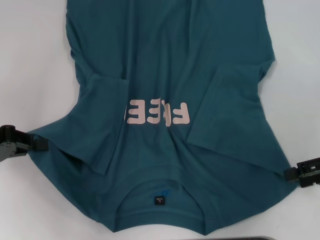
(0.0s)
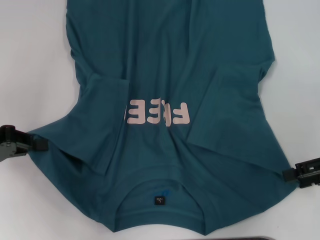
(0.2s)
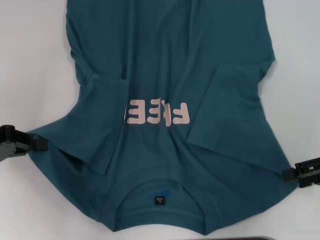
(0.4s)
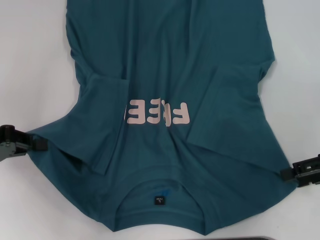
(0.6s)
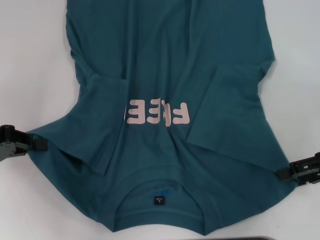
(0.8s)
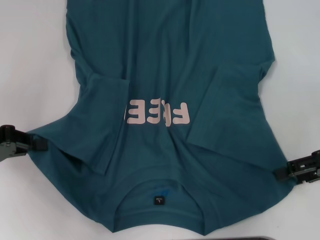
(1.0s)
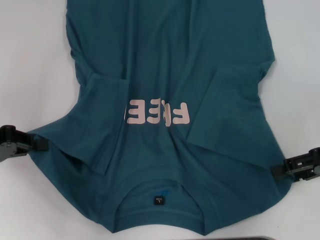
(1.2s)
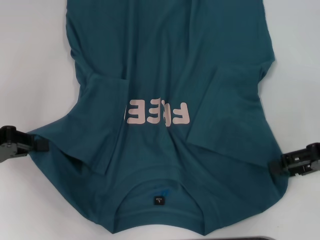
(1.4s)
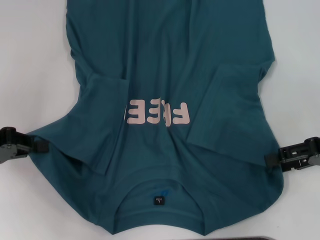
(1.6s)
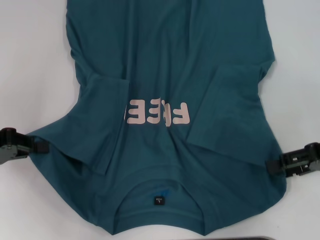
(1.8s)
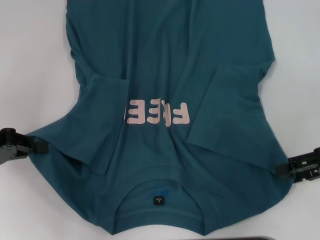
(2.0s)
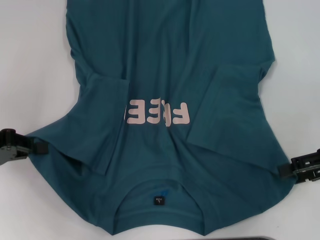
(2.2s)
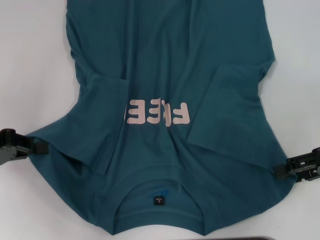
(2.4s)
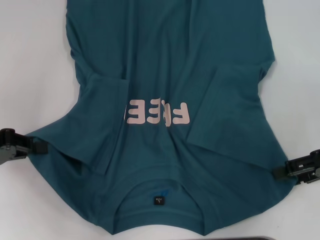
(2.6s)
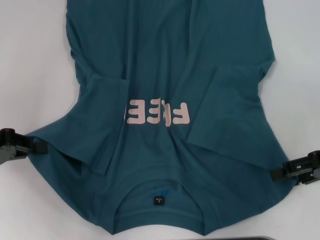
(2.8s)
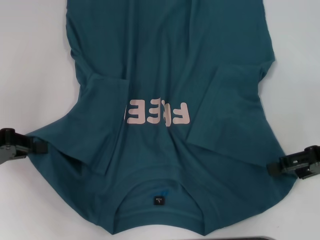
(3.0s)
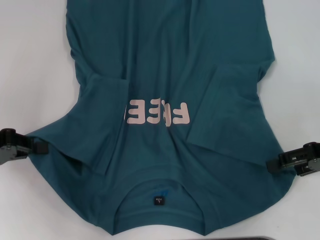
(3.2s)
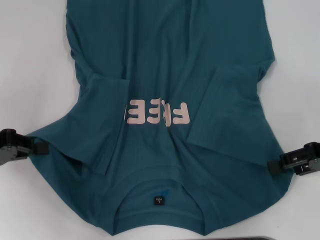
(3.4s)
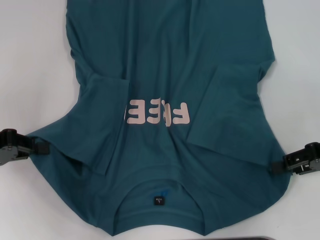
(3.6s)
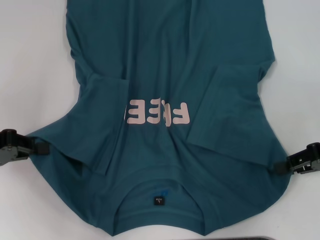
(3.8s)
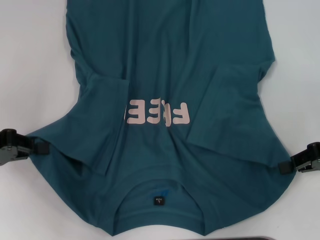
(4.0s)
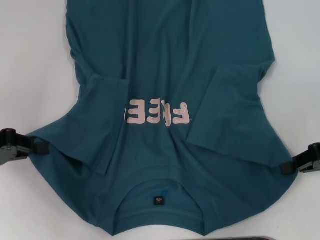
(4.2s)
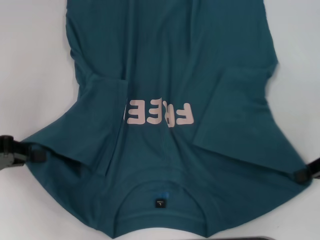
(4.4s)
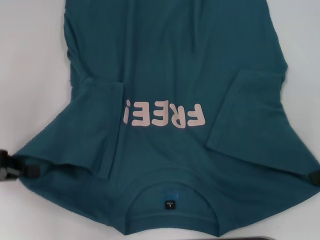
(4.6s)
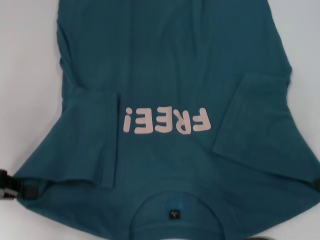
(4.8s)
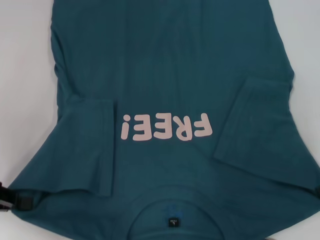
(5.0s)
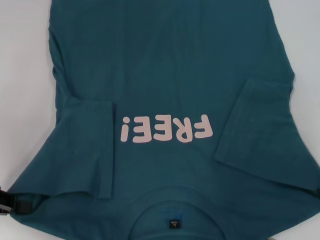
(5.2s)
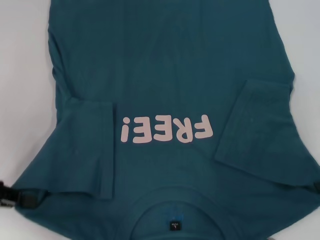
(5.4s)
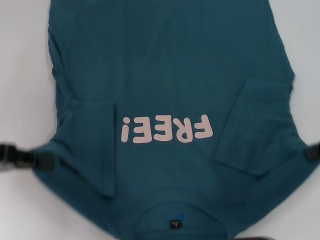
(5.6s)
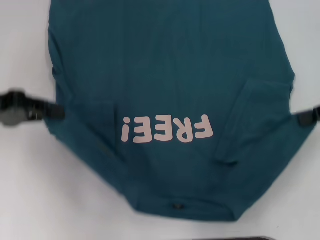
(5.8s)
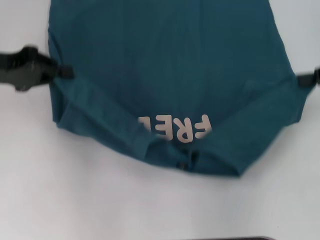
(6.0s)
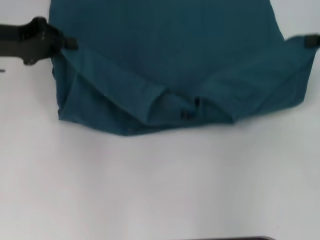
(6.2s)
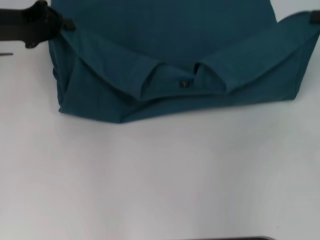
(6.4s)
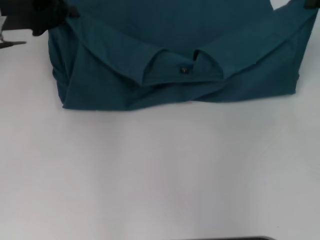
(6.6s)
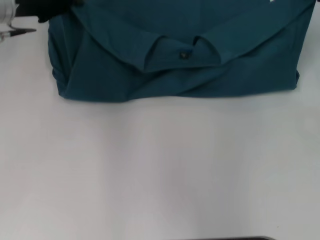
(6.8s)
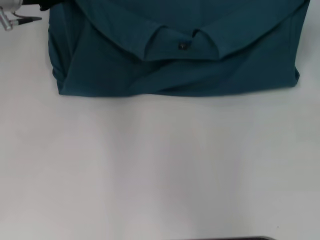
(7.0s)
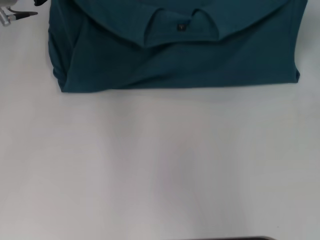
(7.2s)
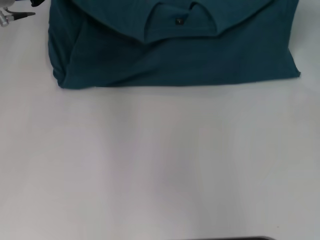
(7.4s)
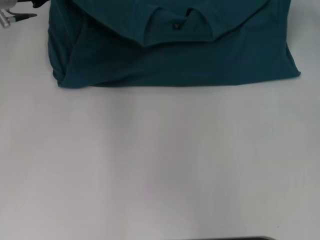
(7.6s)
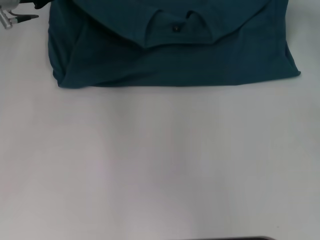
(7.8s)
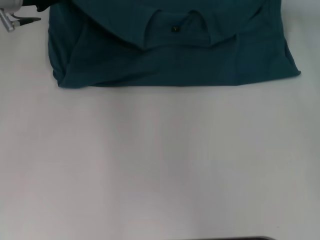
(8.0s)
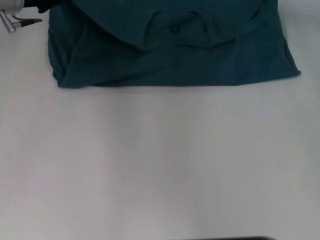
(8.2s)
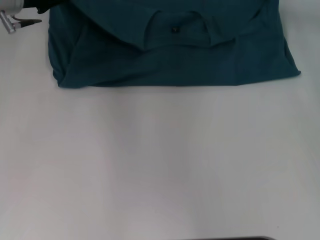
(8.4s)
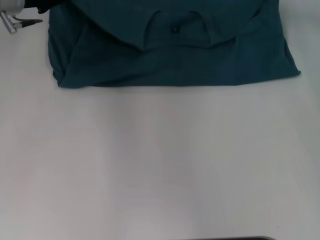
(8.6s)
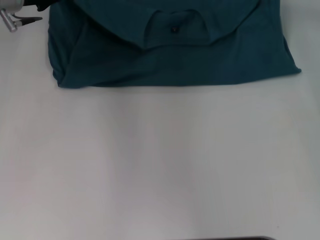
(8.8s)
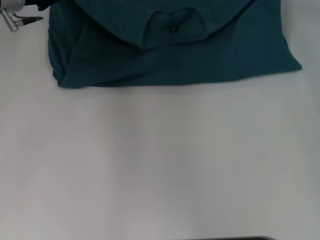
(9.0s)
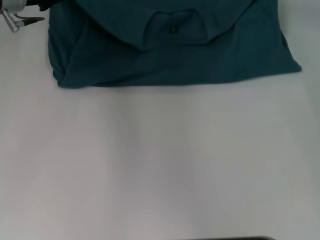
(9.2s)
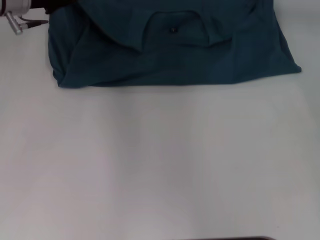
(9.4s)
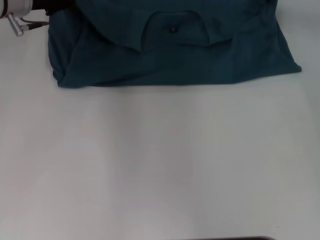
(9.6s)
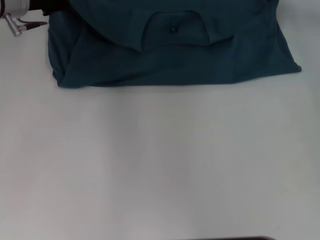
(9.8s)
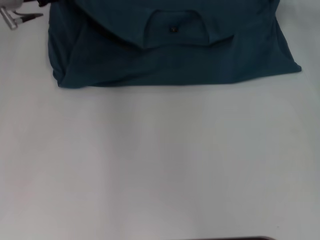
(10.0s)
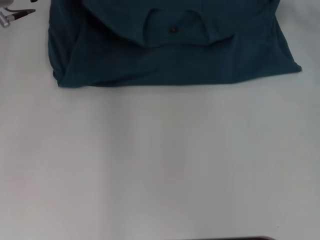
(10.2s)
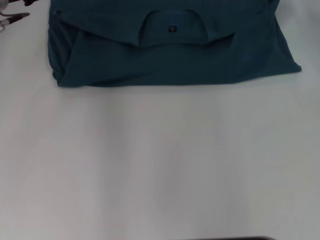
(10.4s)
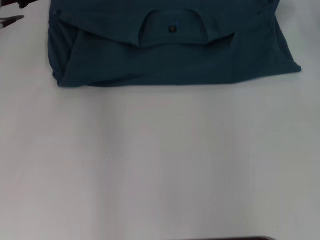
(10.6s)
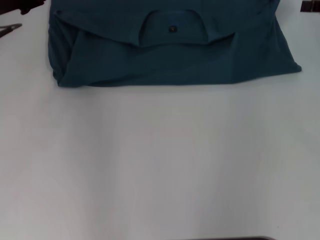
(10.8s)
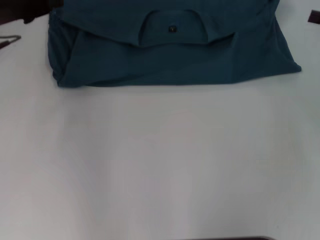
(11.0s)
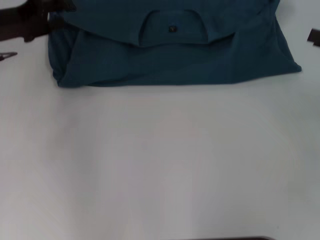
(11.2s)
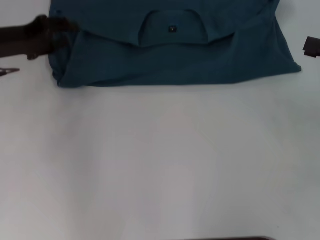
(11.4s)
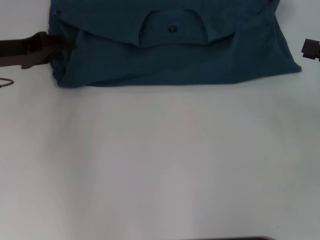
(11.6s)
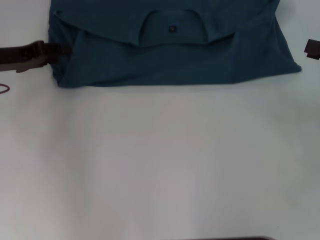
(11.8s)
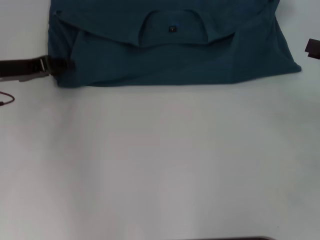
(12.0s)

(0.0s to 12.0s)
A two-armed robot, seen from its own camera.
Step, 0.0s - 4.2s: Grab the bottom right corner with your right hand.
Step, 4.4s - 10.6s: Fold the clothes to the left.
Step, 4.4s - 10.6s: Fold the clothes to the right.
0.0s - 3.0s: The grippers make only small movements.
3.0s - 4.4s: The right gripper closes up.
4.4s - 6.0s: The left gripper travels forward and upward by approximately 10 cm. The right gripper moves upward and forward, roughly 10 cm.
6.0s - 7.6s: The left gripper heads forward and to the right, covering roughly 10 cm. The right gripper is displaced forward by roughly 15 cm.
7.6s - 9.0s: The grippers make only small movements.
9.0s - 10.4s: The right gripper travels to the right by about 5 cm, and opens, while the left gripper opens up.
10.4s - 12.0s: The left gripper shifts roughly 10 cm downward and backward.

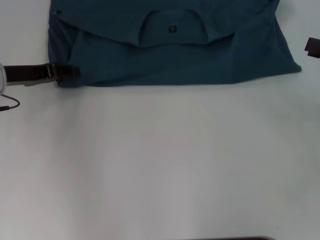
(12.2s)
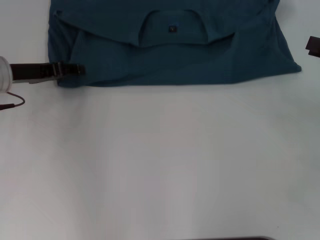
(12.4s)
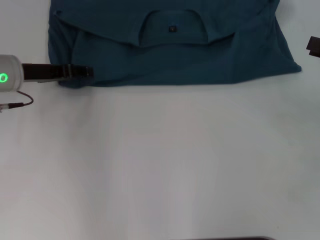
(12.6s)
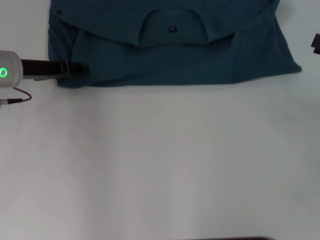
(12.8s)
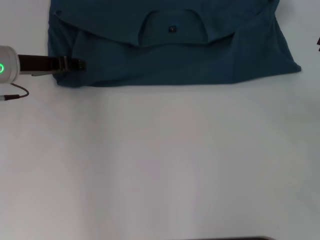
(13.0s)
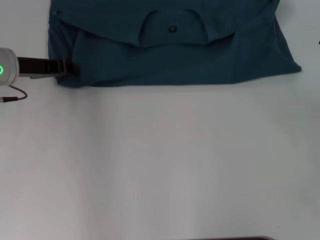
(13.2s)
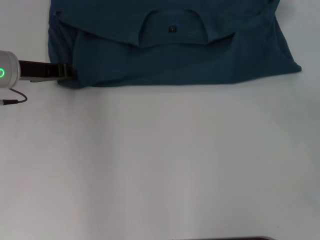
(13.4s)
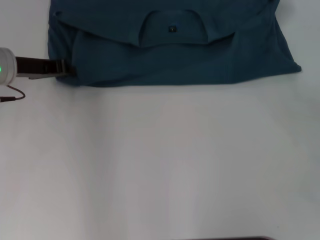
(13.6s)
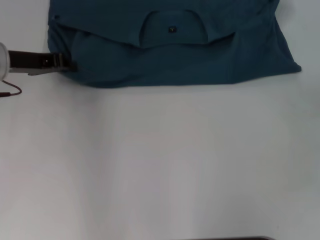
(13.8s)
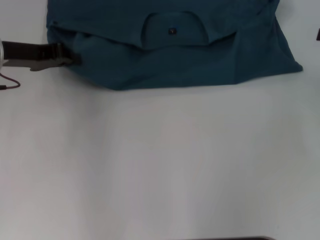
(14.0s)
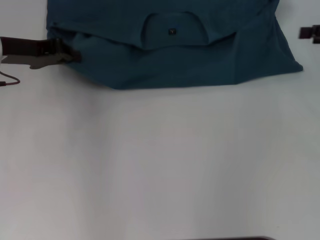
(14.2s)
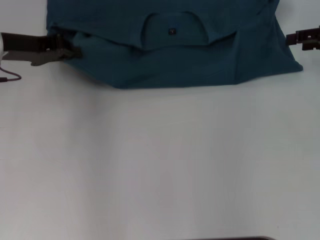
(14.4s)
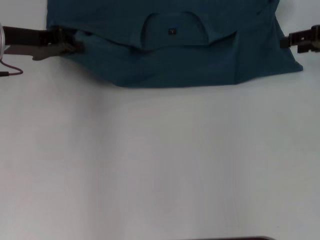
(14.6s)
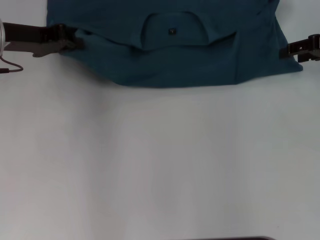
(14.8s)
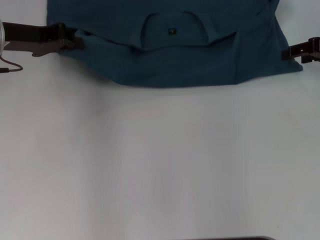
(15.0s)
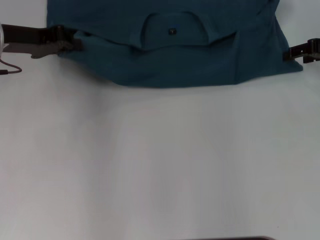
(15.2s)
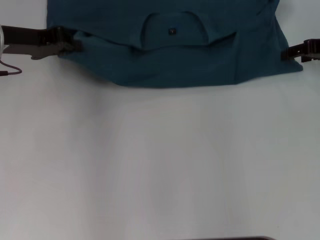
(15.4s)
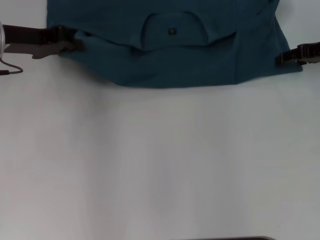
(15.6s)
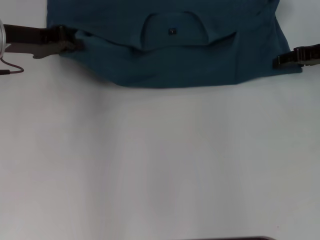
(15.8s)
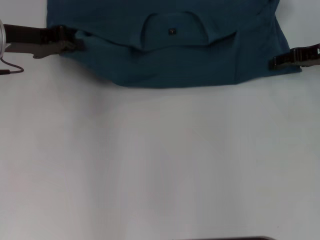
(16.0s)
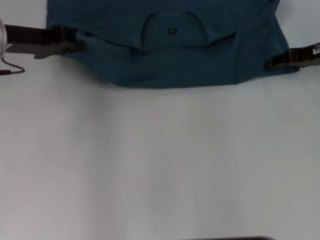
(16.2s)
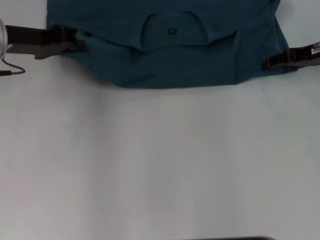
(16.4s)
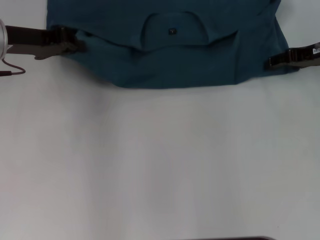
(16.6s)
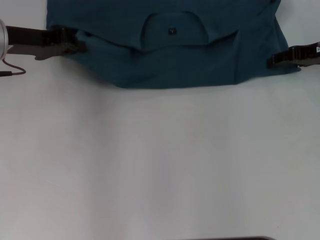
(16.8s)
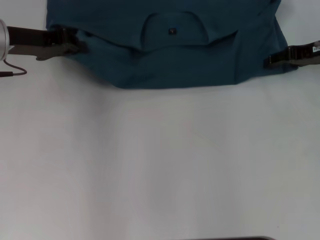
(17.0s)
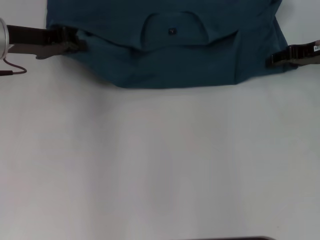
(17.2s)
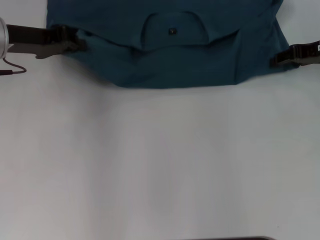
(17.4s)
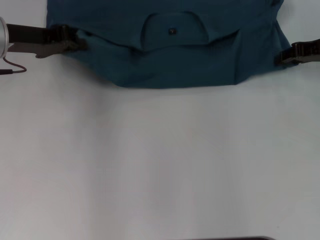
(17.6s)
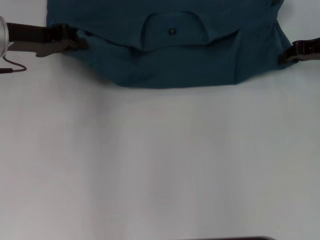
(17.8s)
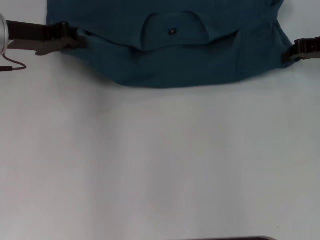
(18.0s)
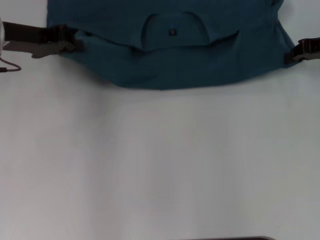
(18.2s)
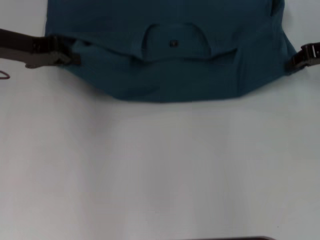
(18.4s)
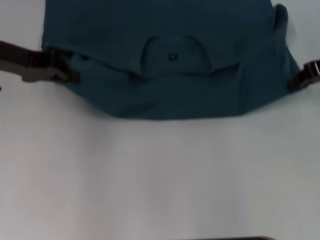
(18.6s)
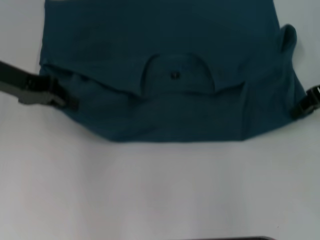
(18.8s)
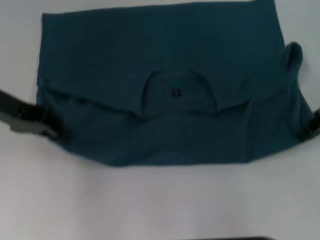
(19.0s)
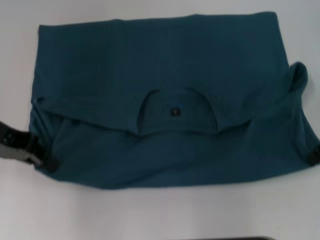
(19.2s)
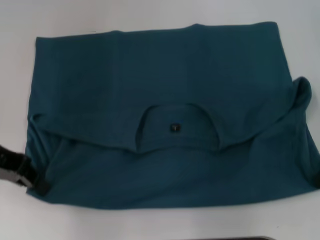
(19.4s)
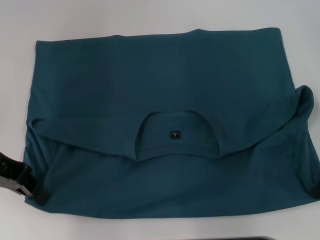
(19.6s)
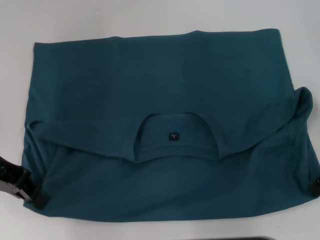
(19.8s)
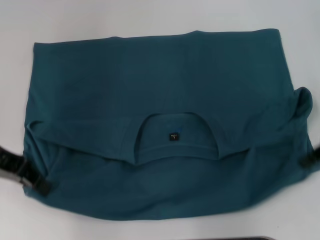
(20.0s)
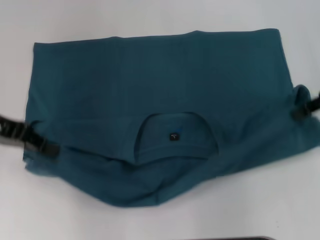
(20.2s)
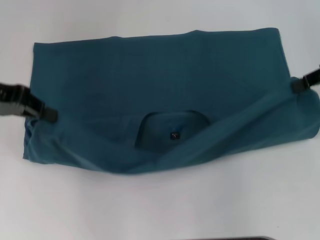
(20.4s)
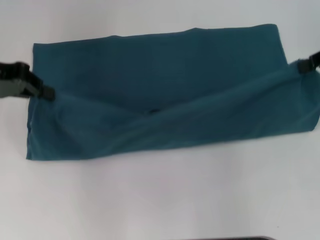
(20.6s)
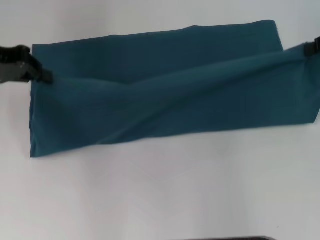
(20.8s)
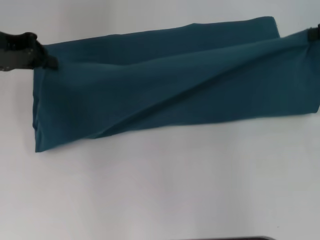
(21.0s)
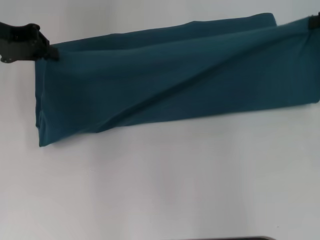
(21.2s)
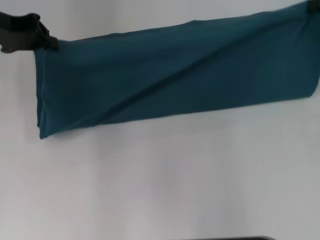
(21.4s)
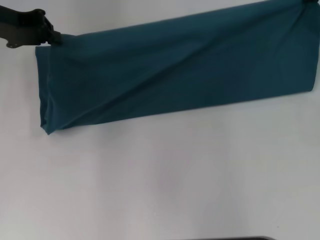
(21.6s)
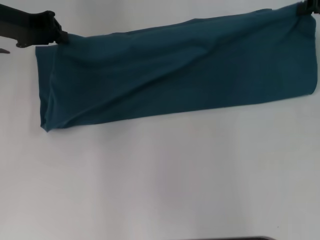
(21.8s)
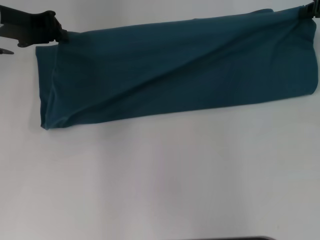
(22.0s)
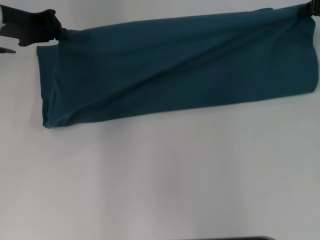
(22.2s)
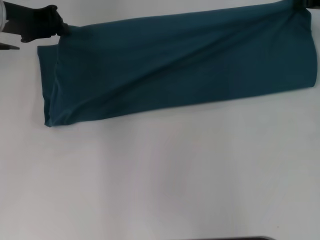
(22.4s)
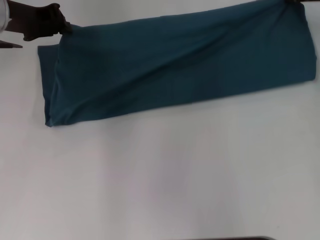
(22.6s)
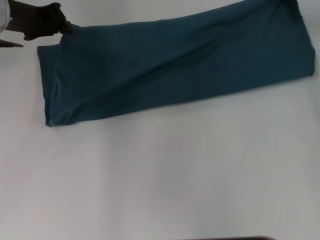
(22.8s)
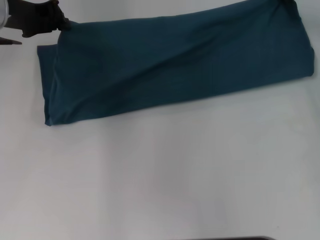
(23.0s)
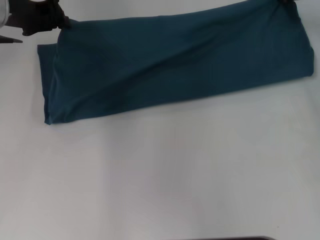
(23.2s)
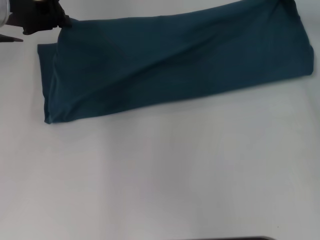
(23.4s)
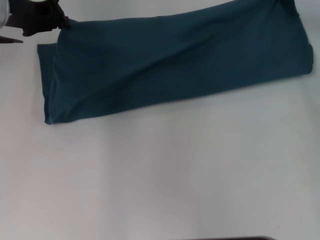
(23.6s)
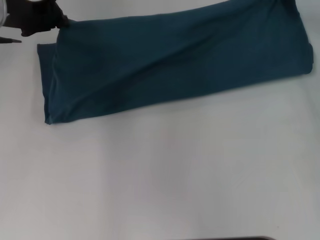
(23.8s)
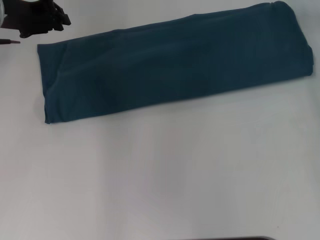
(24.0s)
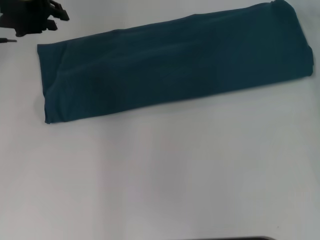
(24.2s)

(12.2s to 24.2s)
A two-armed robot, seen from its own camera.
Step, 12.2s - 19.6s: Pull the clothes with your left hand.
Step, 12.2s - 19.6s: Pull the clothes with your right hand.
12.2s - 13.8s: The left gripper closes.
13.8s - 15.2s: The right gripper is displaced forward and to the left by some 10 cm.
15.2s - 16.6s: There are only small adjustments of the grippers.
16.6s - 18.2s: The right gripper closes.
18.2s - 19.8s: The grippers both shift backward by approximately 10 cm.
19.8s - 21.2s: The right gripper heads forward and upward, covering some 10 cm. The left gripper heads forward, covering some 10 cm.
21.2s - 22.6s: The left gripper moves some 5 cm. Meanwhile the right gripper moves downward, forward and to the left, about 10 cm.
22.6s - 24.2s: There are only small adjustments of the grippers.
